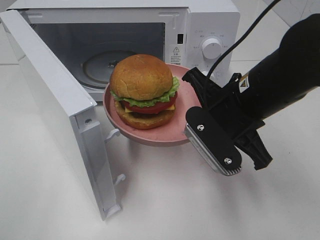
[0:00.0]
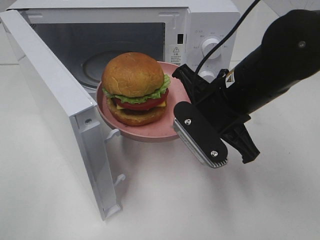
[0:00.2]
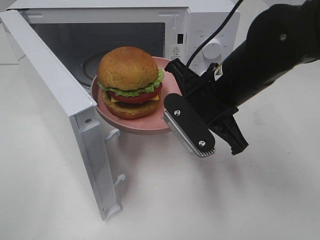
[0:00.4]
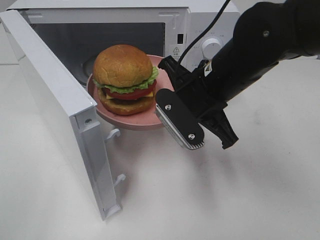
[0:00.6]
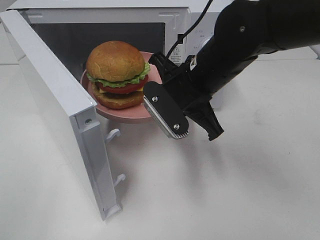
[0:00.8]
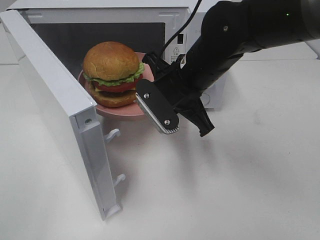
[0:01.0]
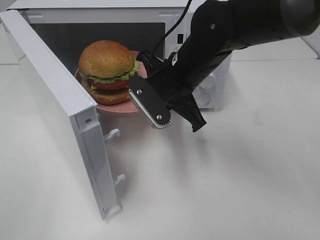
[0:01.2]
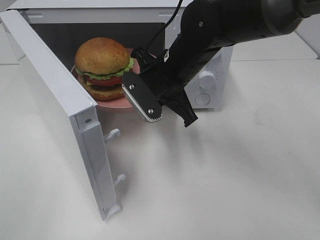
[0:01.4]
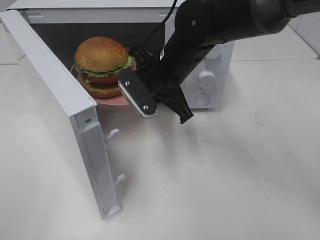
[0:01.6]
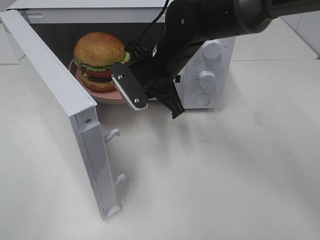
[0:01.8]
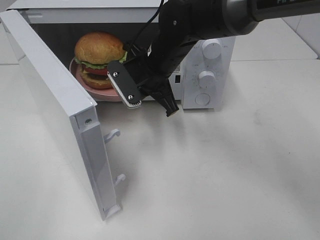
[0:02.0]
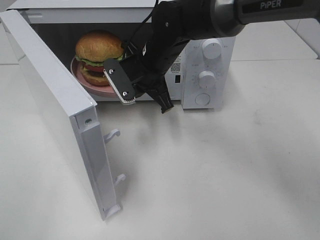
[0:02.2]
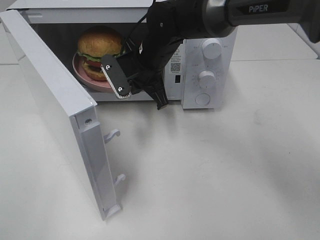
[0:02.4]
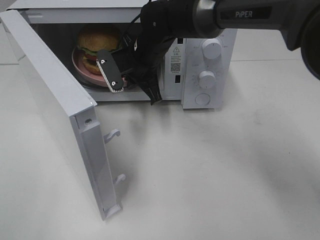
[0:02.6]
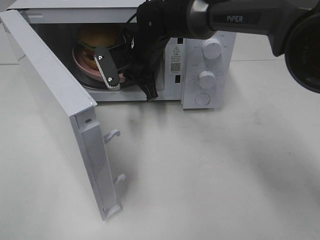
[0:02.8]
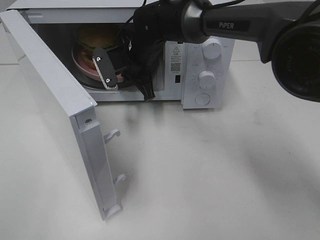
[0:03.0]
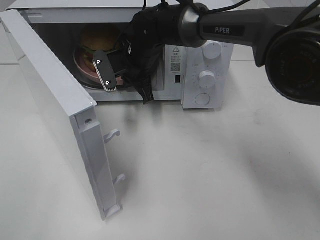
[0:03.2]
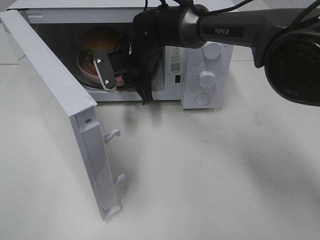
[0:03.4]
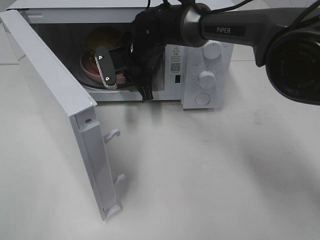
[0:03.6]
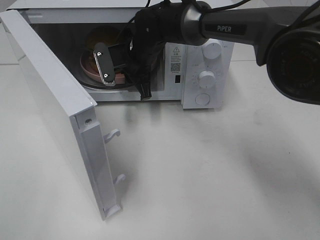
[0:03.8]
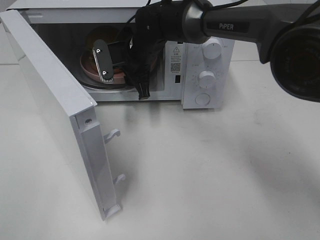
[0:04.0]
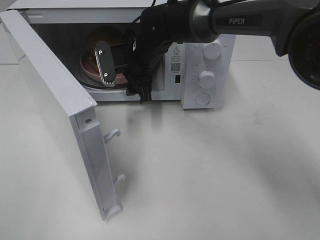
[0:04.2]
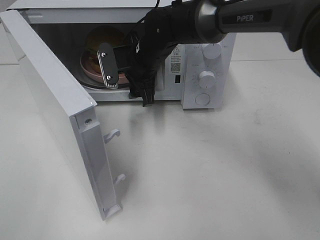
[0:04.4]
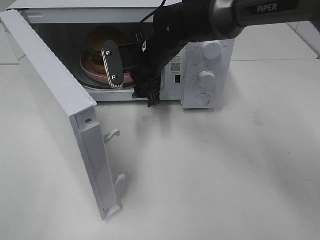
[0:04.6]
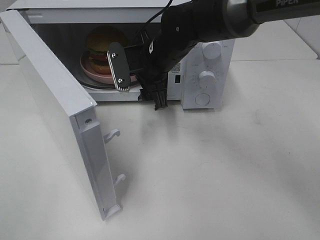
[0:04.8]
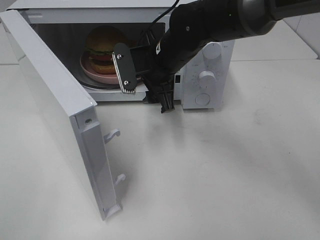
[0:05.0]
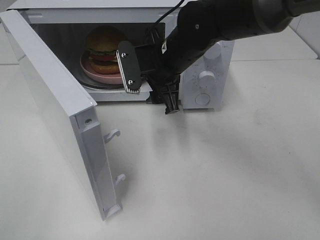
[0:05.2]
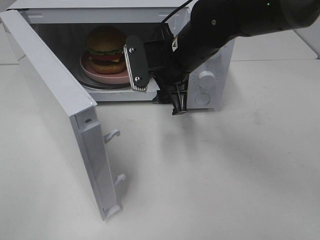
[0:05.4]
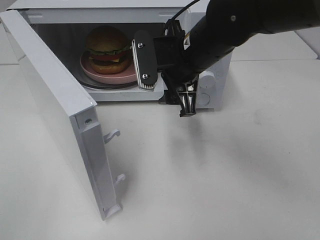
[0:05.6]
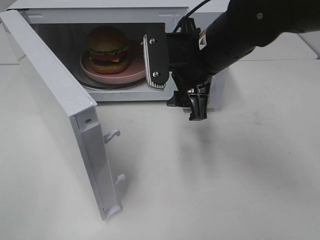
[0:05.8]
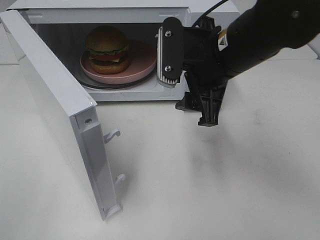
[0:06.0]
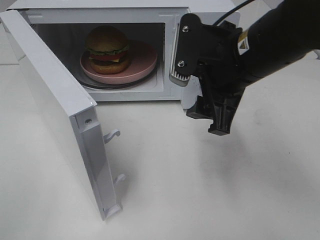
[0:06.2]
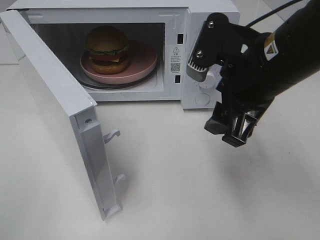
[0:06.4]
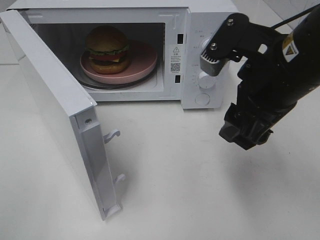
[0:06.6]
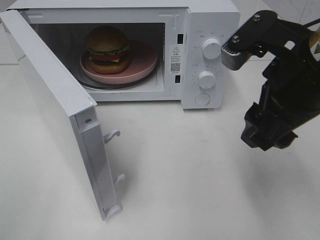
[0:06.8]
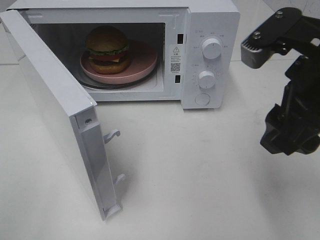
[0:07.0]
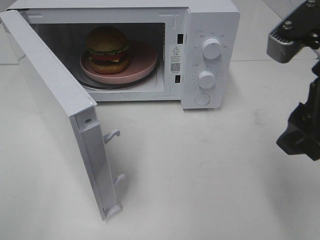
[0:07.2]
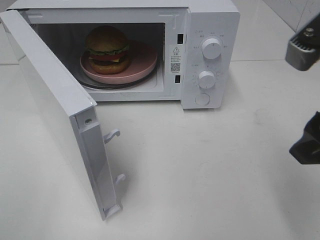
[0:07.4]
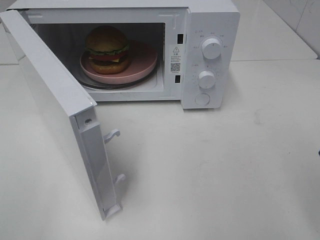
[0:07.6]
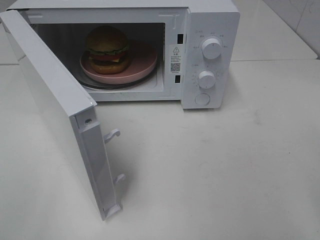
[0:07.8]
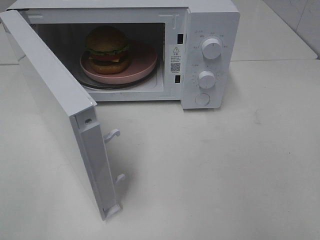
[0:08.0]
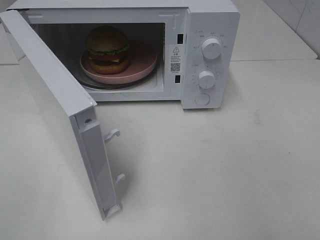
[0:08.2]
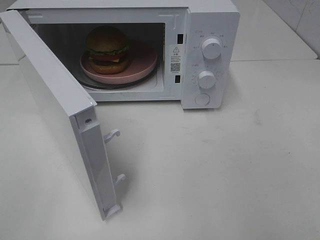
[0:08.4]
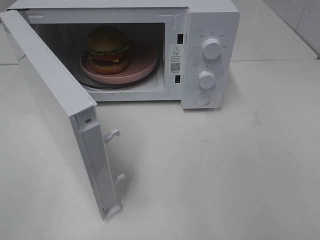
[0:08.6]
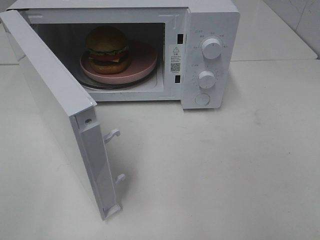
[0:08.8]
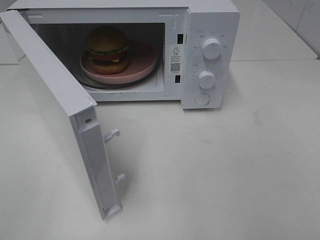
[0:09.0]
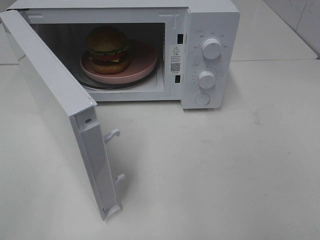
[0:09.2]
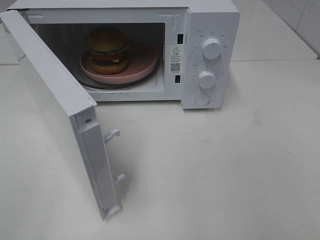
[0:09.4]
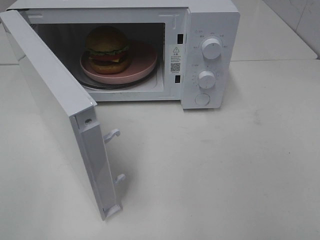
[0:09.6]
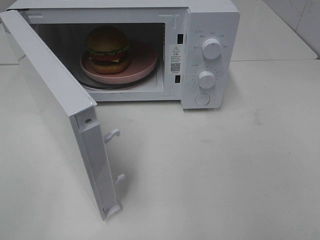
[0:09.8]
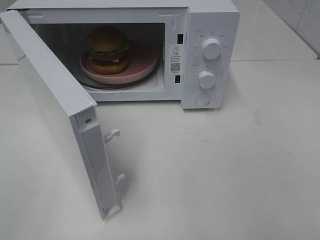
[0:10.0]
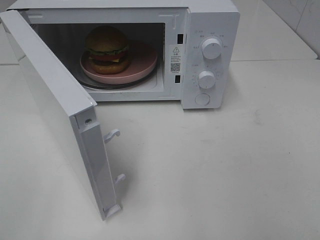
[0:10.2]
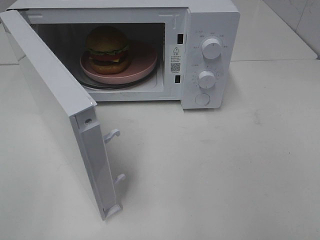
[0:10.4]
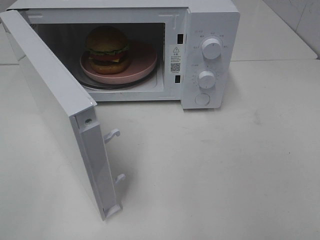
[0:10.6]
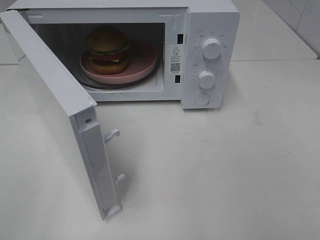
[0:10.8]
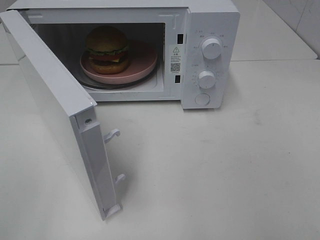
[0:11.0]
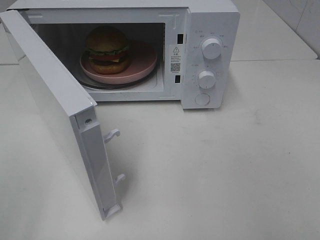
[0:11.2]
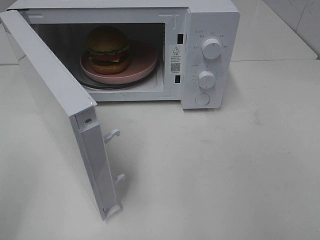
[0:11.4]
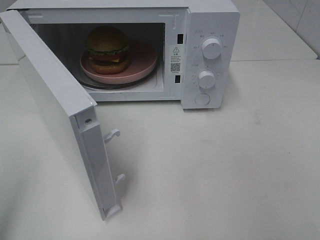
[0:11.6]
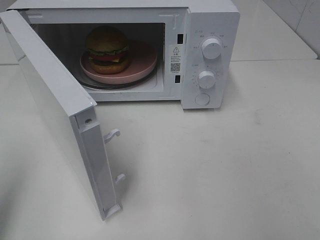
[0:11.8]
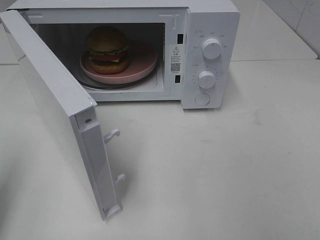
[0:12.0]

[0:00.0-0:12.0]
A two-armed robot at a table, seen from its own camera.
Task of the whole recording: Heat the burger.
Step, 0:00.0 to 0:04.0: Right hand: place the plate in the microwave.
0:00.0 to 0:01.6: The right gripper travels forward and to the left by about 15 cm.
0:01.6 to 0:03.0: The right gripper is displaced forward and to the left by approximately 10 cm.
0:03.0 to 0:04.4: The right gripper opens its fingers.
0:04.4 to 0:06.0: The right gripper is displaced backward, to the right and upward by about 20 cm.
0:06.0 to 0:07.6: The right gripper travels to the right and backward by some 20 cm.
0:09.0 to 0:10.4: Both grippers stay about where they are.
0:10.4 to 0:12.0: The left gripper heads forward, covering some 15 cm, and closes up.

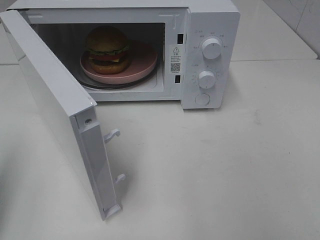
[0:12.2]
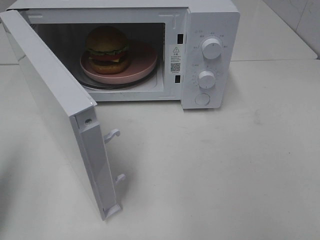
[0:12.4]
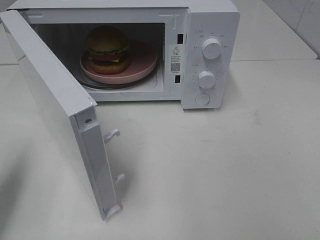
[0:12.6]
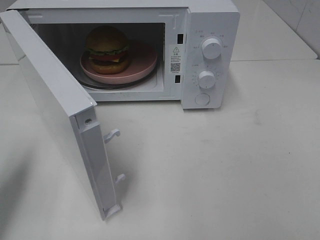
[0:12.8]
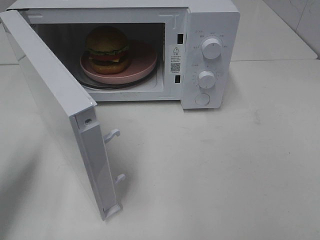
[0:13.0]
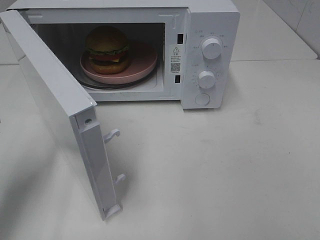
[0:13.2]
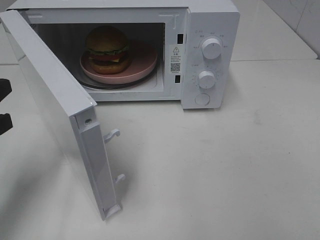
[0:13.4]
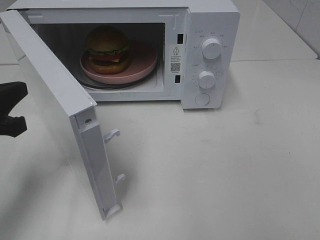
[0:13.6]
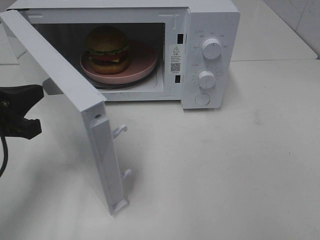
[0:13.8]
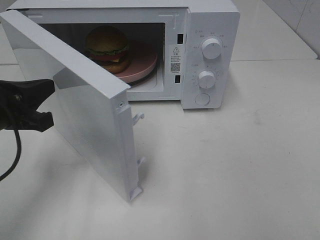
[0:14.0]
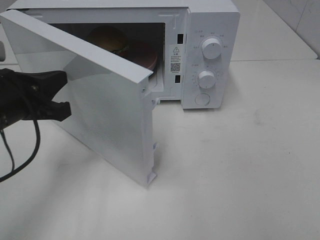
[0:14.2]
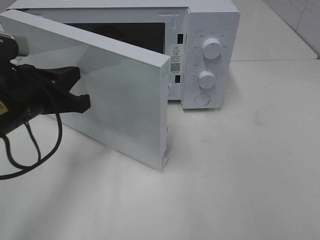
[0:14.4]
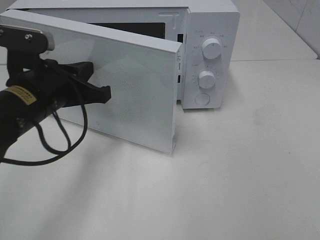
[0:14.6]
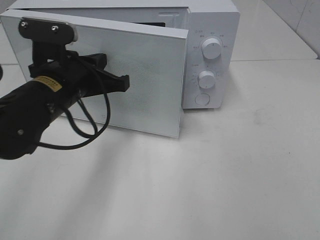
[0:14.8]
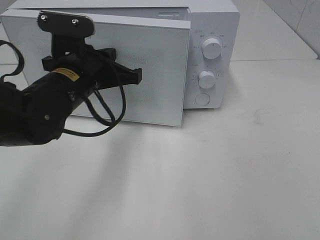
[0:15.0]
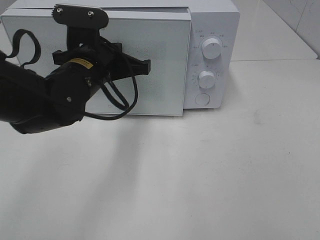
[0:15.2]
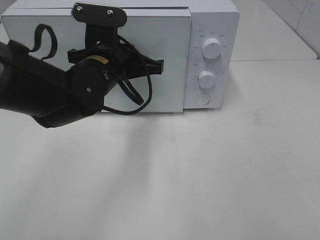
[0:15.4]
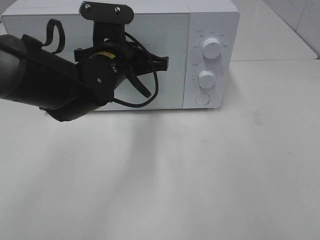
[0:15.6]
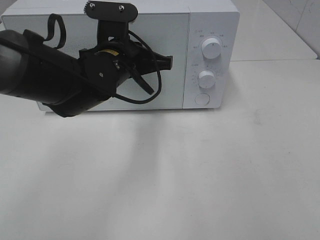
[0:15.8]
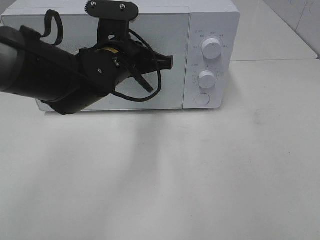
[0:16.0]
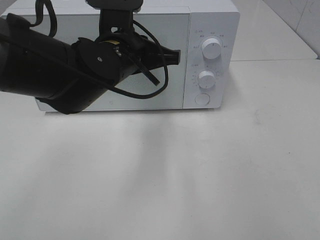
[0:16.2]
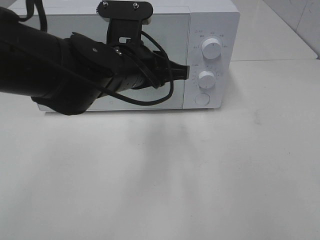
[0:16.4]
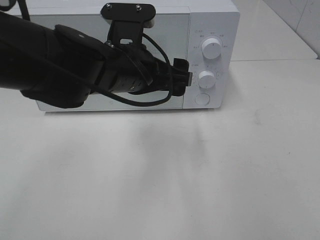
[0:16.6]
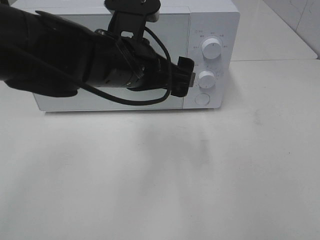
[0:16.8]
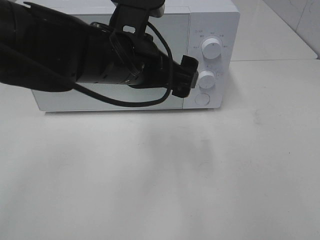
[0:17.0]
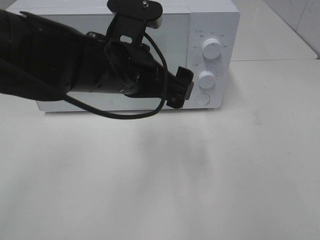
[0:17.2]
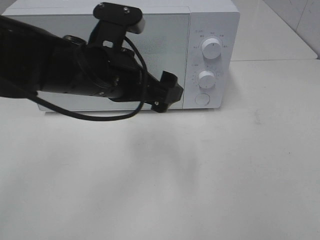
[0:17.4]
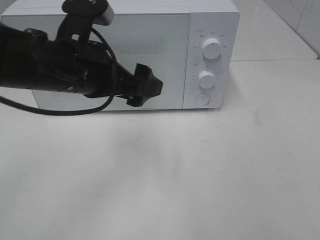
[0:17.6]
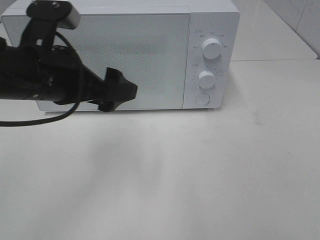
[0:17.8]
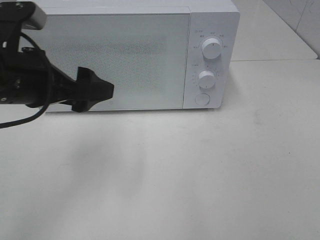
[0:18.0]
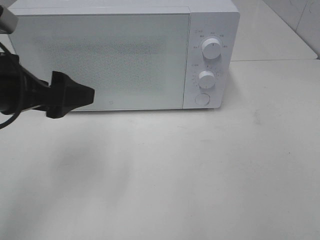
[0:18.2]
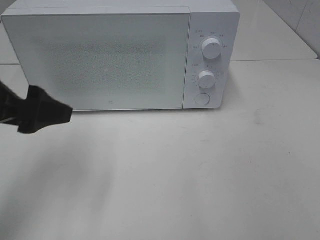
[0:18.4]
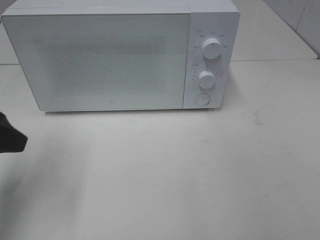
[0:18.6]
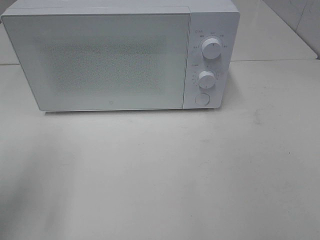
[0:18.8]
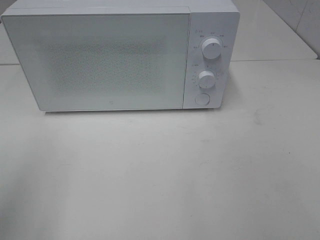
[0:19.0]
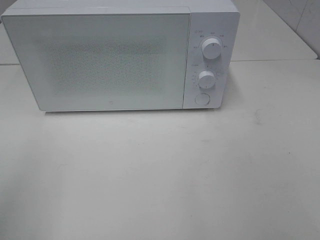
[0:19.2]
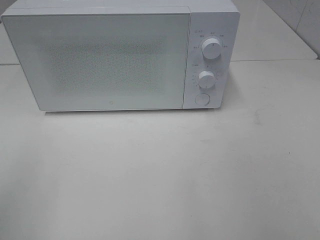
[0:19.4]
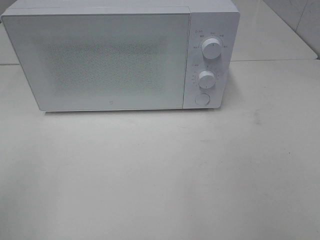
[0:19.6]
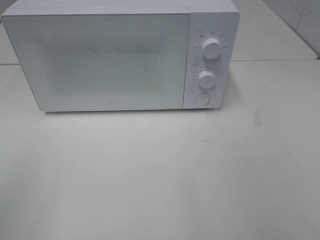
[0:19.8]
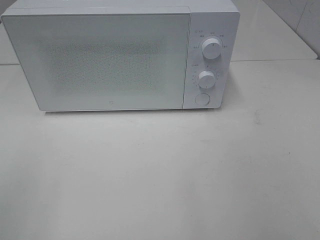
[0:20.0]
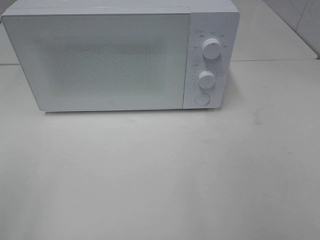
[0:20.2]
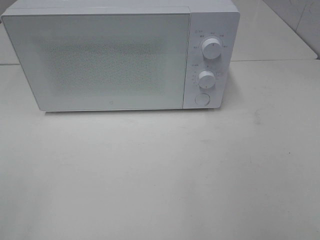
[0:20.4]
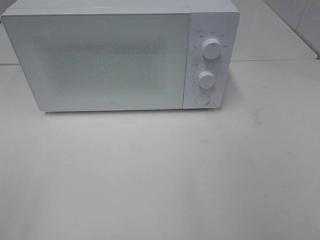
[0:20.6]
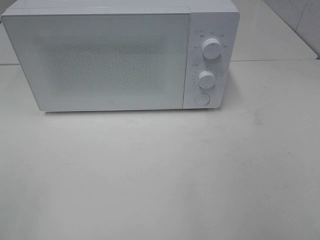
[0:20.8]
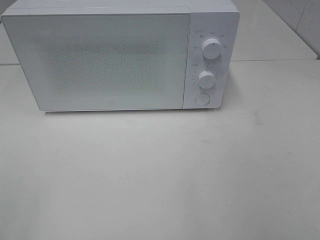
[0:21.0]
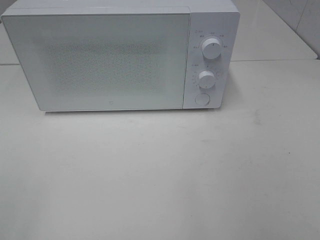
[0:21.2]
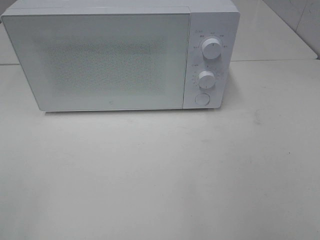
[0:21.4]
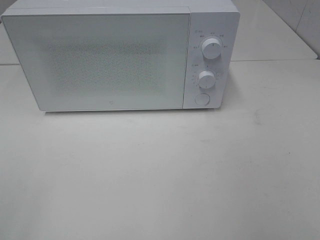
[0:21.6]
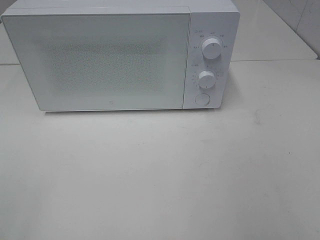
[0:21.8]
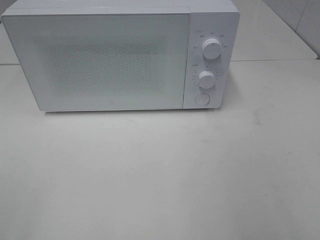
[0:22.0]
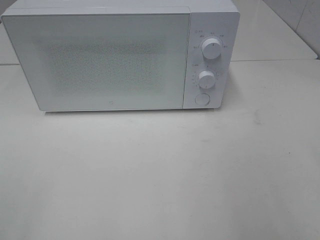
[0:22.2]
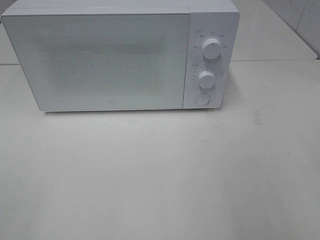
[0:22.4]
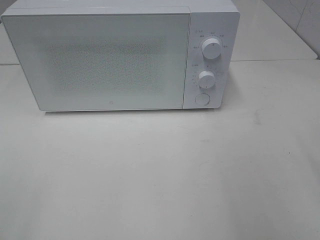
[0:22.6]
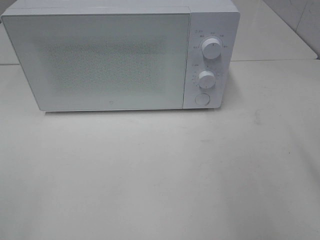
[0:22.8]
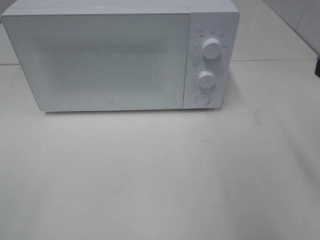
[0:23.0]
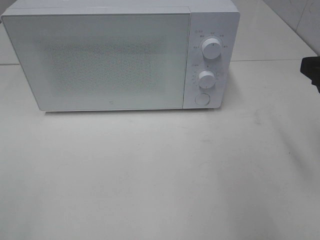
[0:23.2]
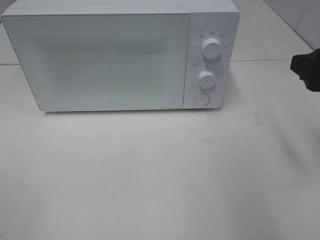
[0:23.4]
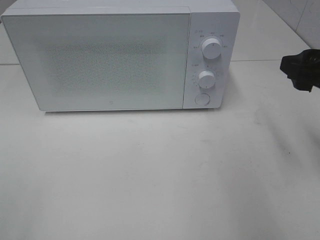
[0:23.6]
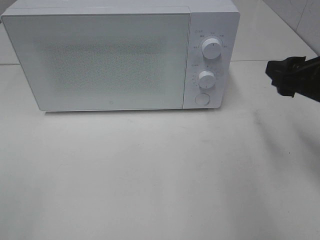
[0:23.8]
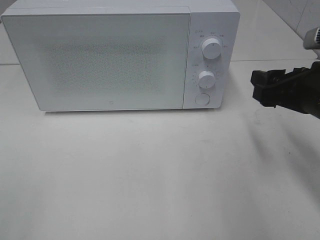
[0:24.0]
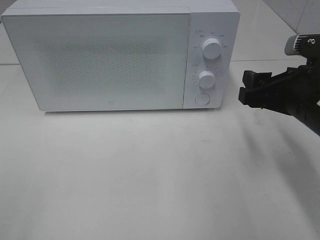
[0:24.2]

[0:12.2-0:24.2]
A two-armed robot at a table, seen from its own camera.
Task of the whole recording: Heat the burger.
Step, 0:12.2 to 0:17.0: Left hand: close the microwave door.
0:12.2 to 0:13.8: The left gripper goes approximately 15 cm to the right, forward and downward.
0:13.8 to 0:15.2: The left gripper heads to the right and forward, covering roughly 20 cm.
0:15.2 to 0:16.6: The left gripper is displaced to the right by roughly 5 cm, and opens its fingers.
0:16.6 to 0:18.2: The left gripper shifts some 15 cm to the left.
0:18.2 to 0:19.8: The left gripper shifts approximately 20 cm backward and to the left.
0:22.6 to 0:24.2: The right gripper heads forward, downward and to the left, covering approximately 15 cm.
